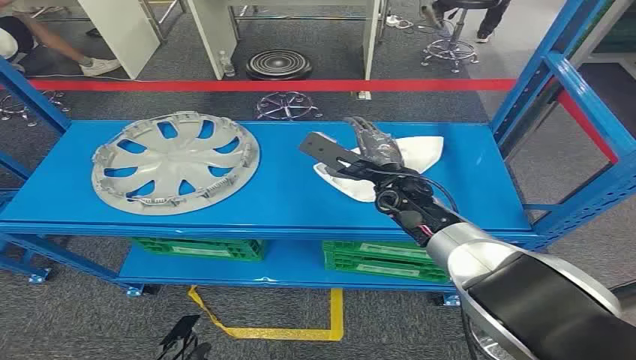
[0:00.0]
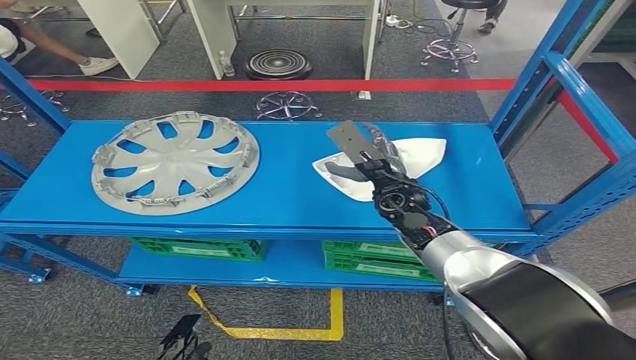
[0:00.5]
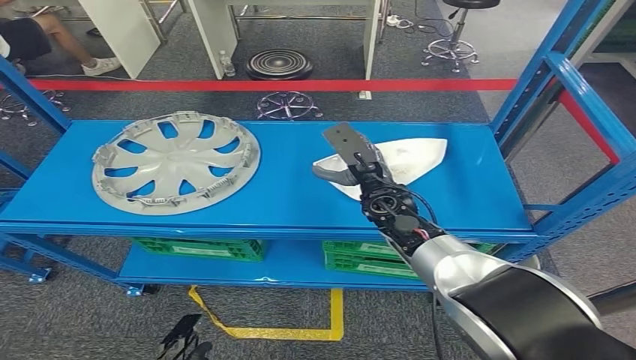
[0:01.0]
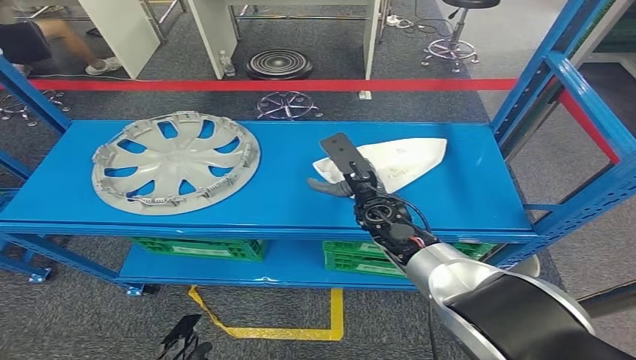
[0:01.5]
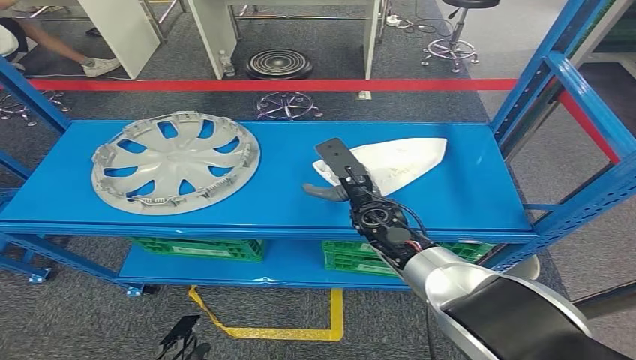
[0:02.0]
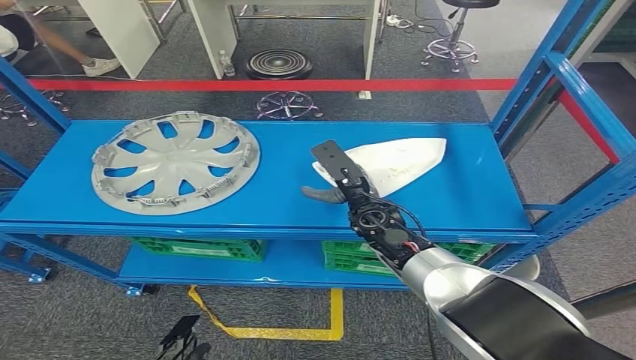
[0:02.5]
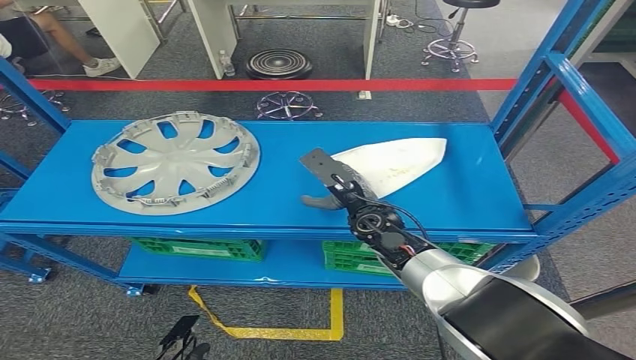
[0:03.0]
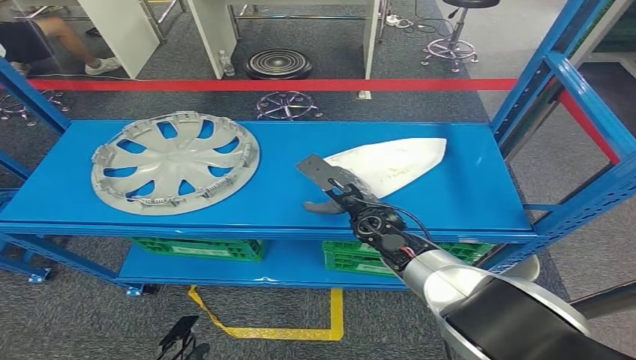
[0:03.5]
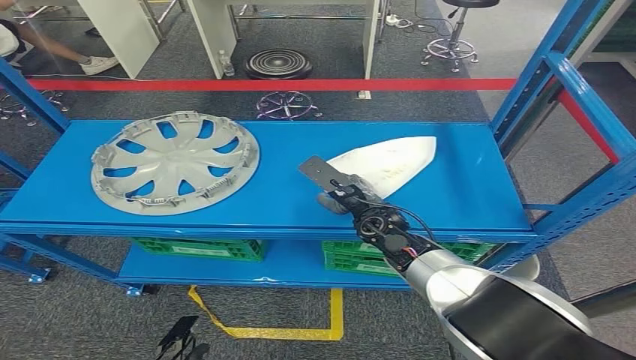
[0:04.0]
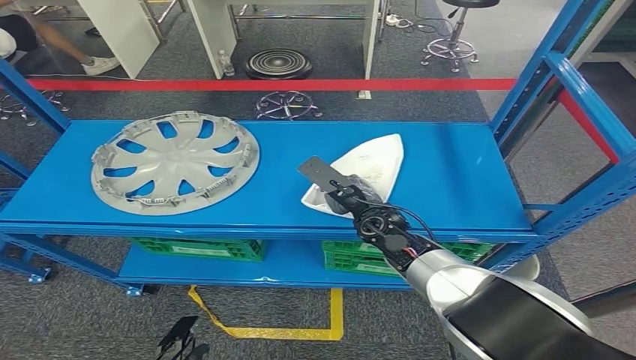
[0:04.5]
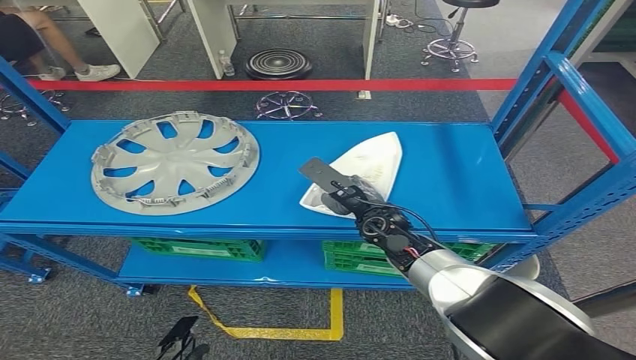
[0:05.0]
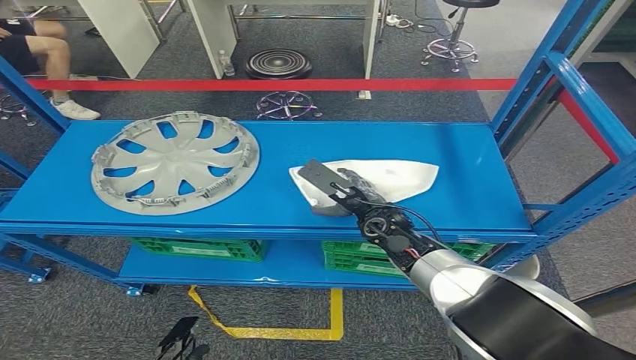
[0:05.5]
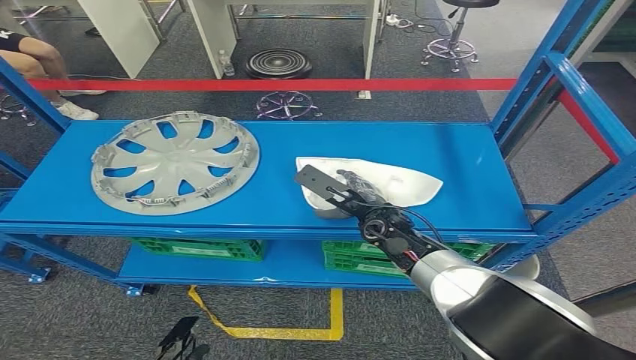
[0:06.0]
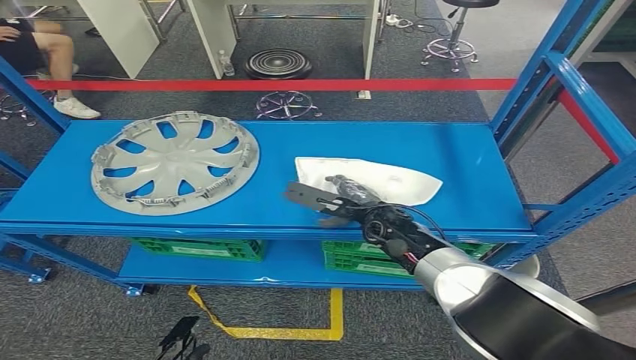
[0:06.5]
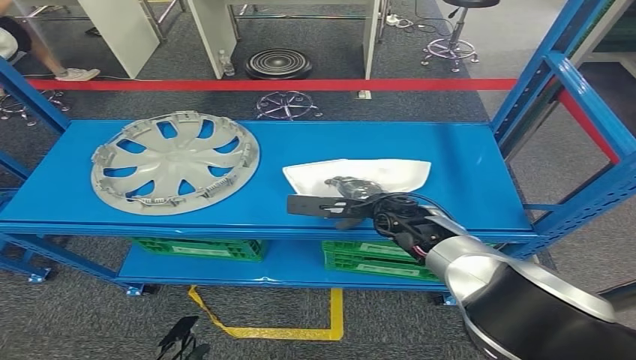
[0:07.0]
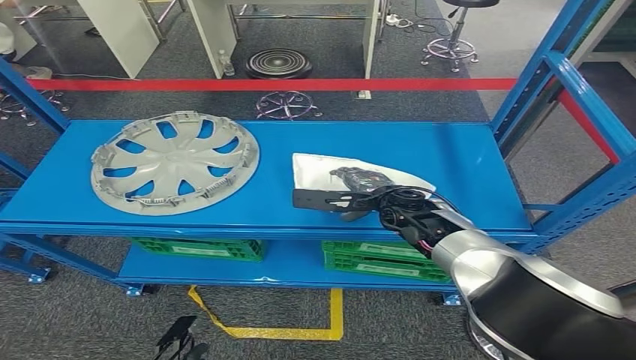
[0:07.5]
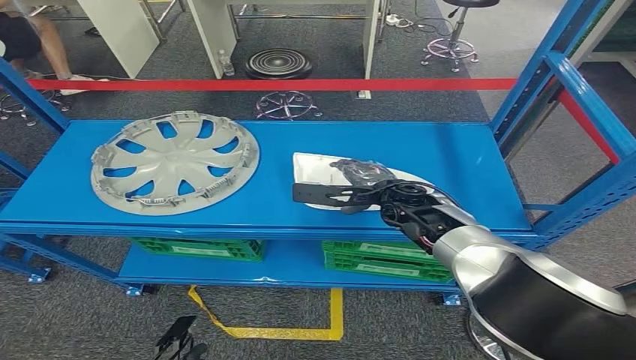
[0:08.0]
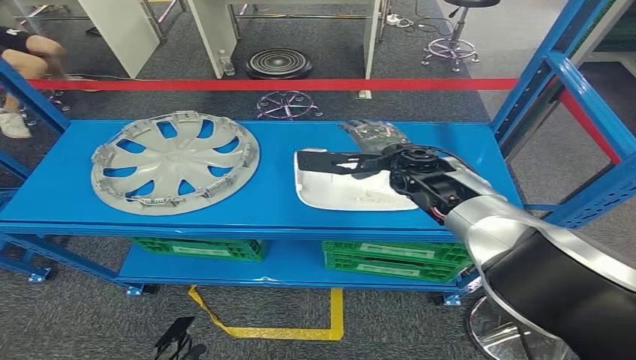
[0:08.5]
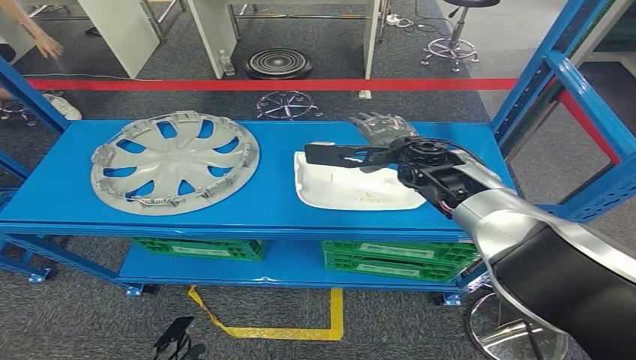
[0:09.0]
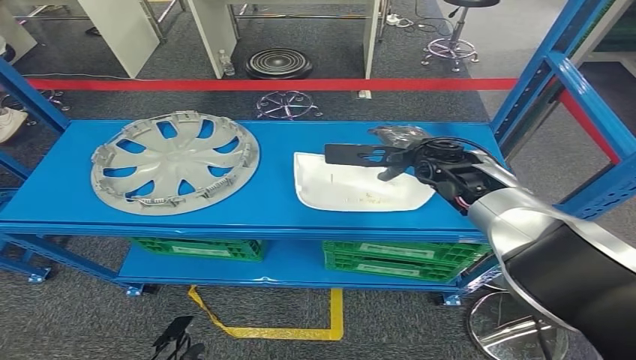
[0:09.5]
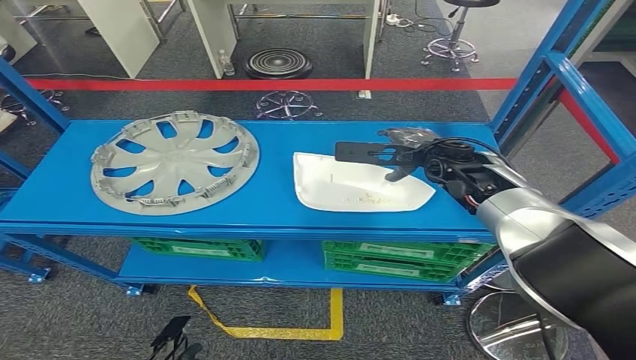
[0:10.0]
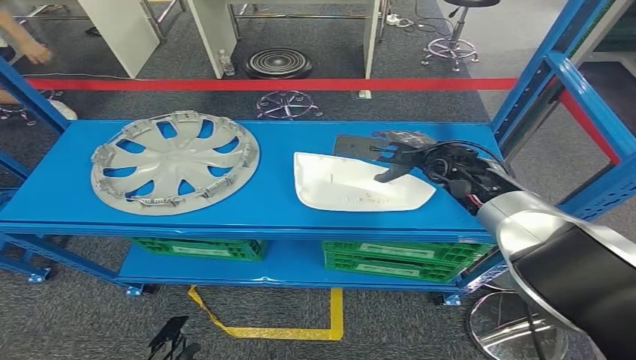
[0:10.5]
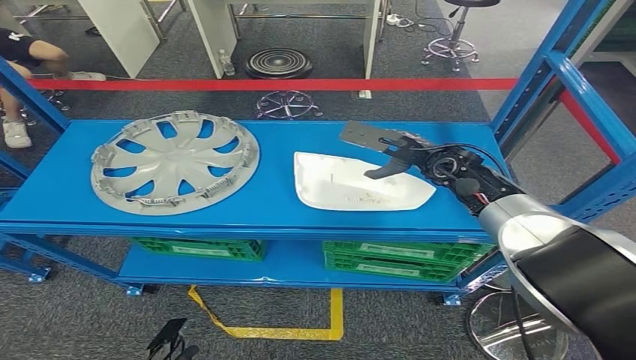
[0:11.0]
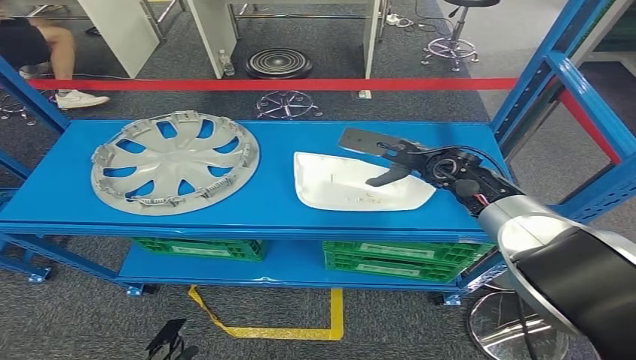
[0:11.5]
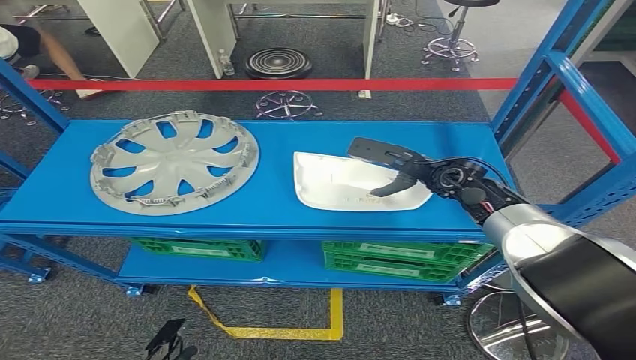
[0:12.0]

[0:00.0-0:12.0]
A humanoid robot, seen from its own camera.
0:02.0 to 0:04.0: The hands make only small movements.
0:04.0 to 0:06.0: The hands stay close to where they were, moving slightly.
0:06.0 to 0:08.0: The right hand ends up approximately 5 cm from where it was.
0:08.0 to 0:10.0: The right hand travels upward and to the right by approximately 10 cm.

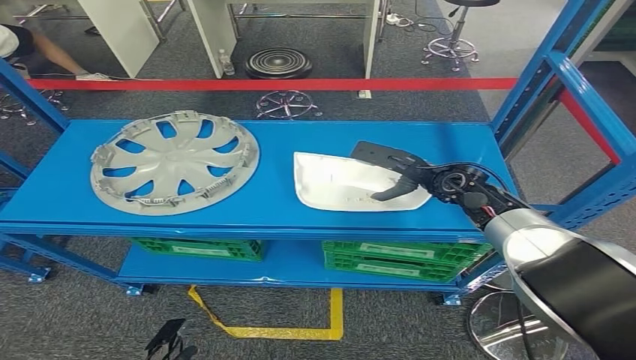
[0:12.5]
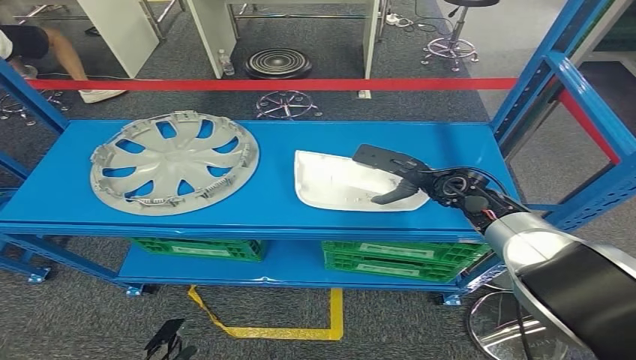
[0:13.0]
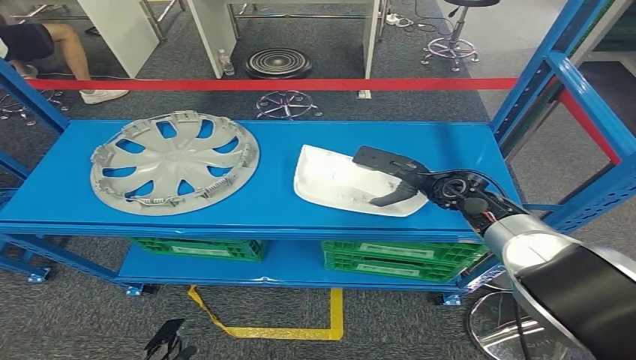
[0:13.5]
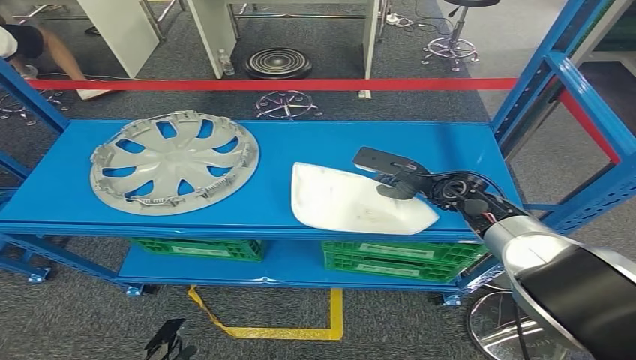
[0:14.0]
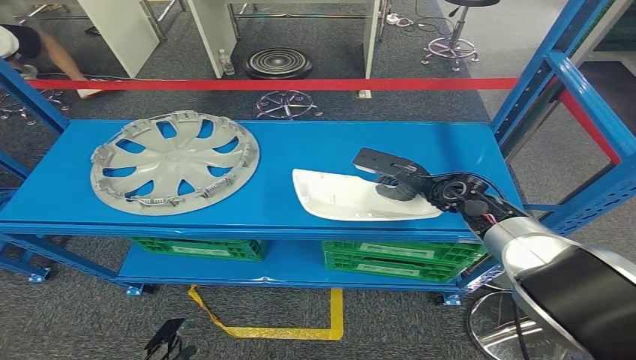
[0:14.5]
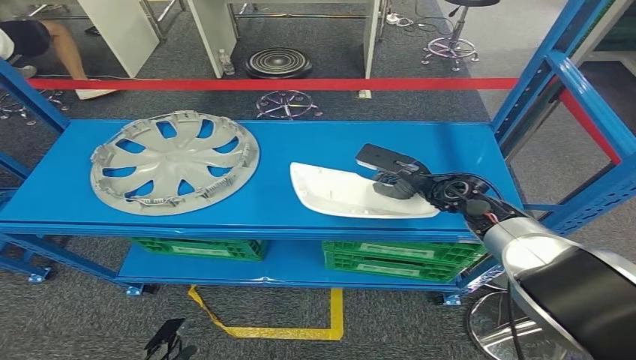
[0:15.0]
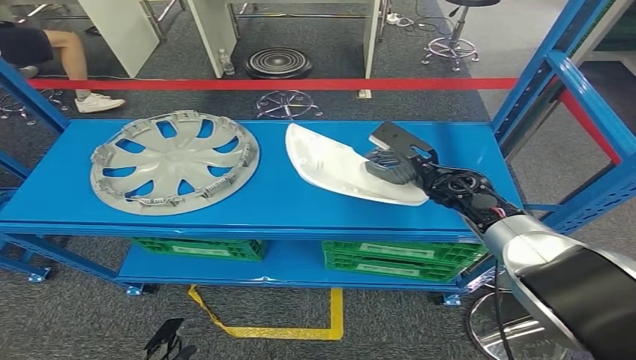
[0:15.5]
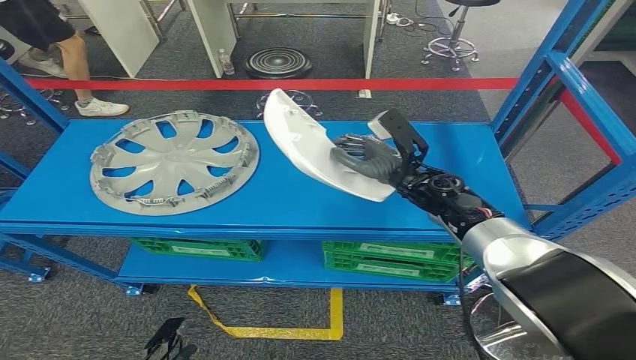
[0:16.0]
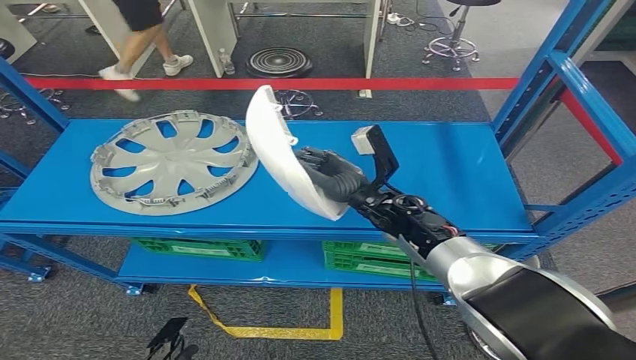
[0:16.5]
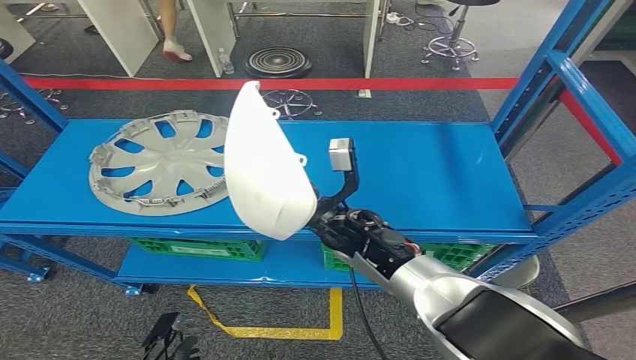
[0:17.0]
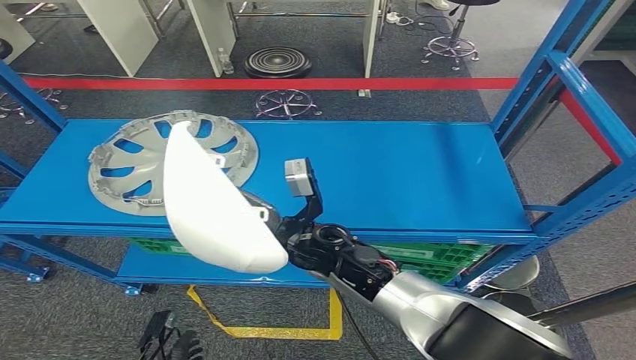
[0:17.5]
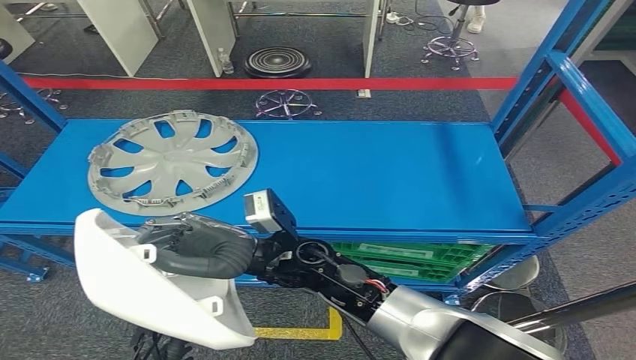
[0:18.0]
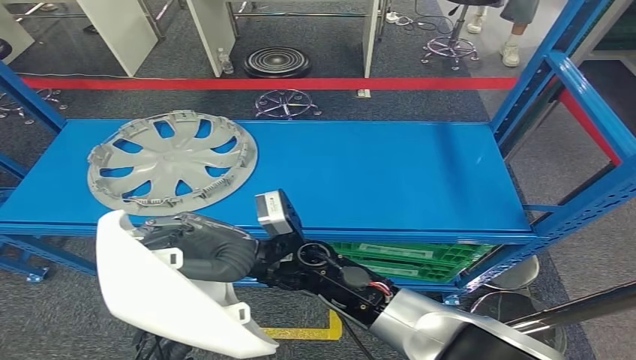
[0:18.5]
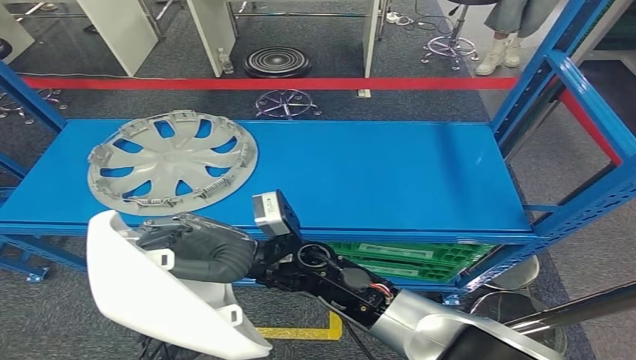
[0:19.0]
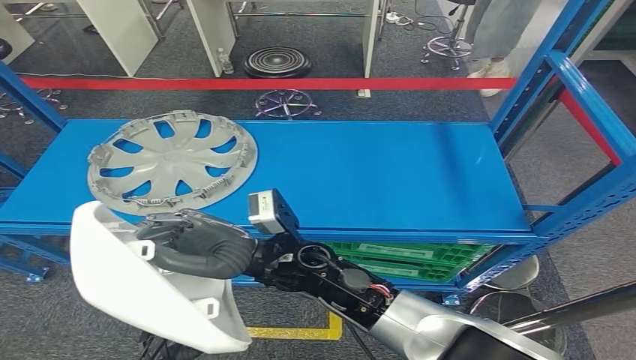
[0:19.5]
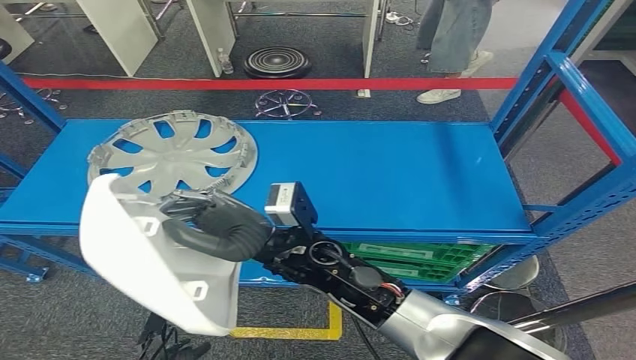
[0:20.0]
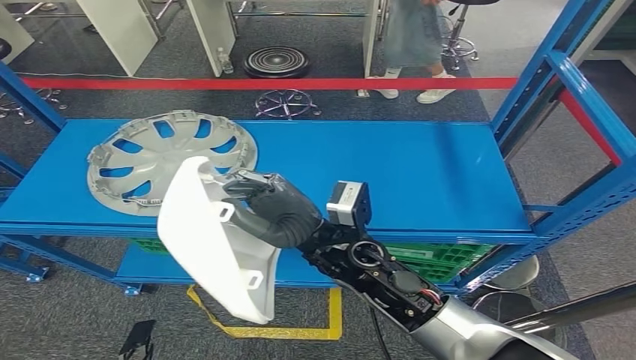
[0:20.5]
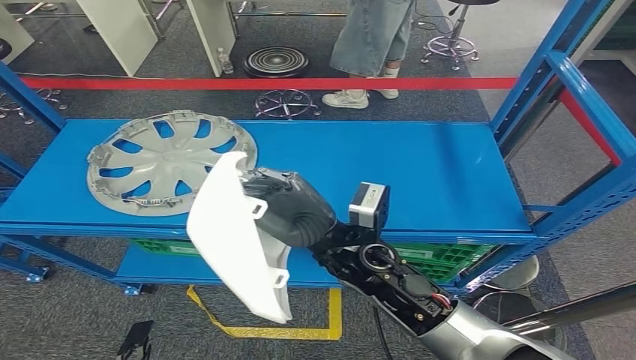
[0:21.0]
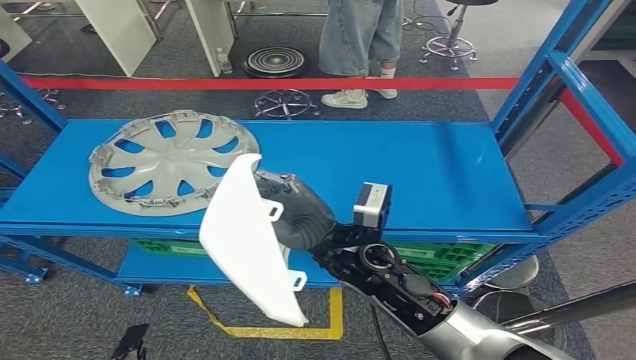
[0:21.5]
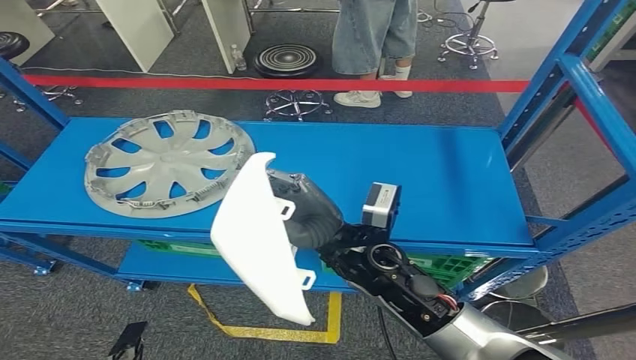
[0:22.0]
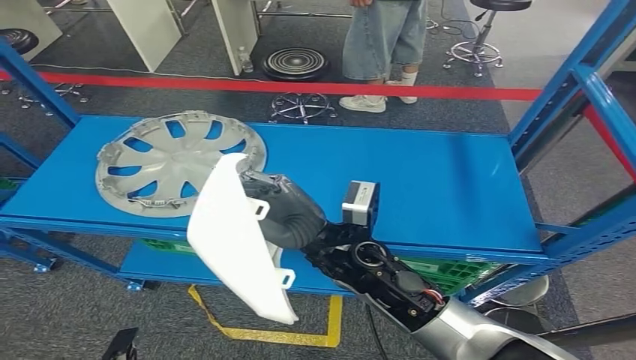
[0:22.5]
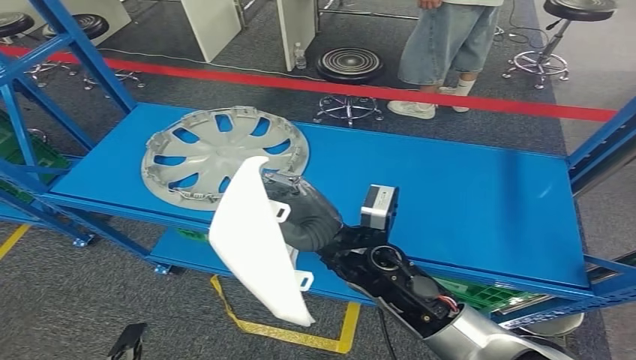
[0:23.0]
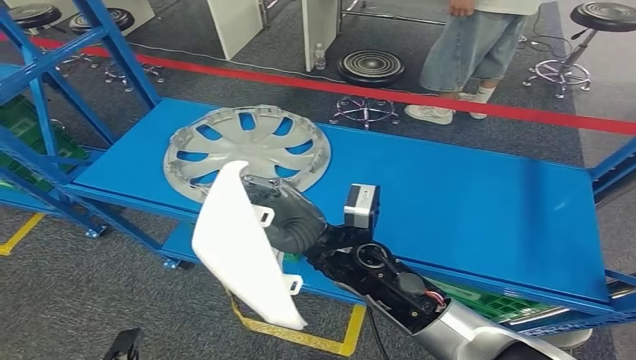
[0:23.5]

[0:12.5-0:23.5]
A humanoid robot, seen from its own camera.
Step, 0:12.5 to 0:16.5: Pick up the small component from the shelf.
0:12.5 to 0:14.5: The hands move only a little.
0:18.0 to 0:20.0: There are only small adjustments of the hands.
